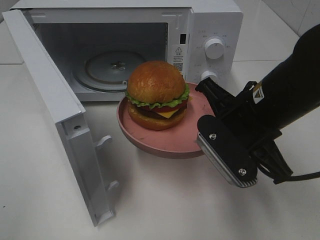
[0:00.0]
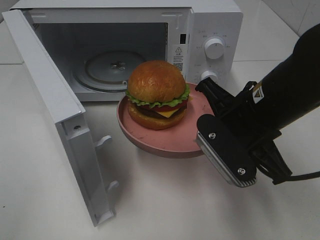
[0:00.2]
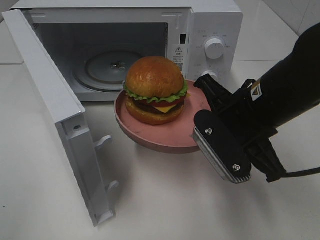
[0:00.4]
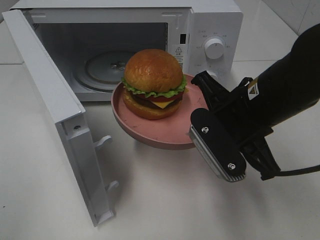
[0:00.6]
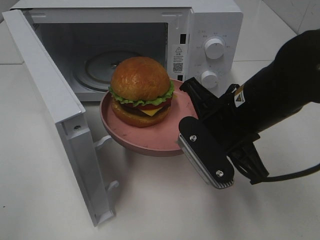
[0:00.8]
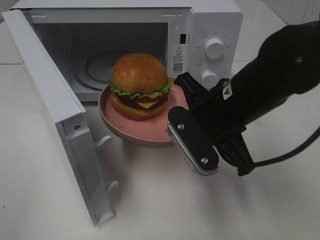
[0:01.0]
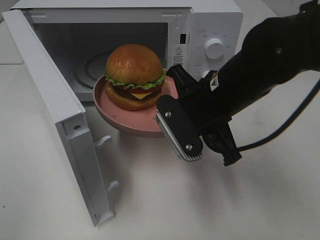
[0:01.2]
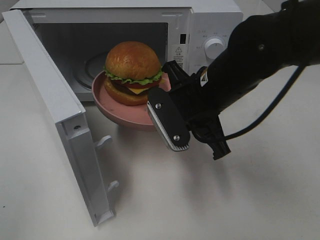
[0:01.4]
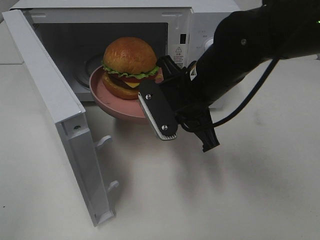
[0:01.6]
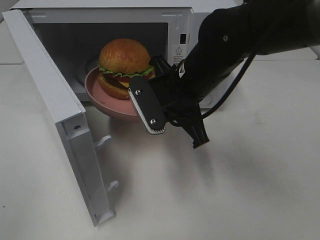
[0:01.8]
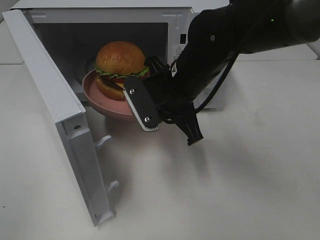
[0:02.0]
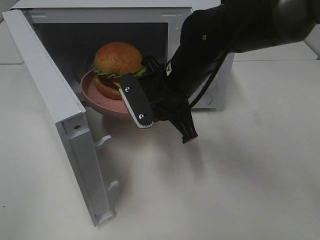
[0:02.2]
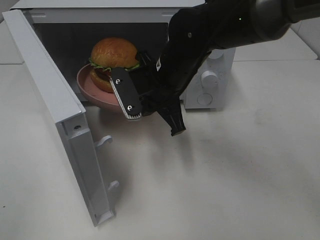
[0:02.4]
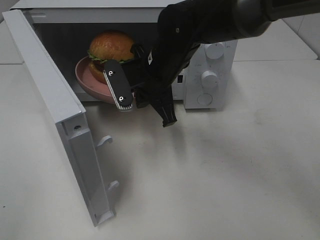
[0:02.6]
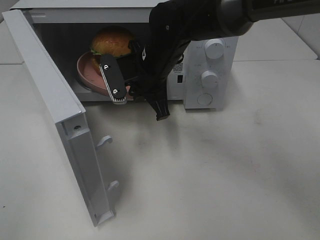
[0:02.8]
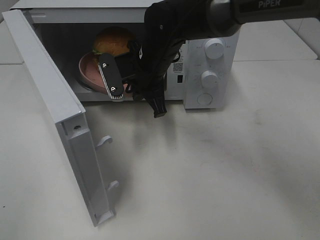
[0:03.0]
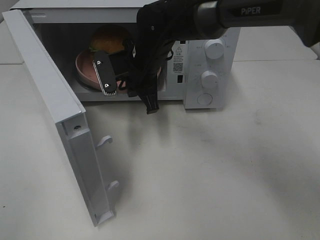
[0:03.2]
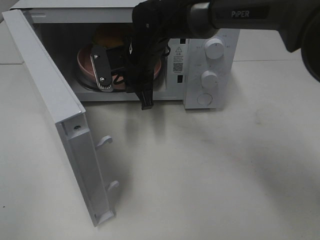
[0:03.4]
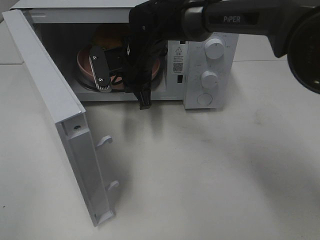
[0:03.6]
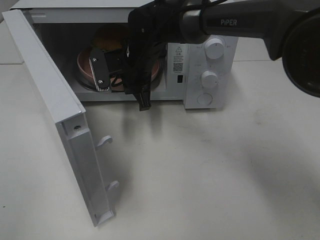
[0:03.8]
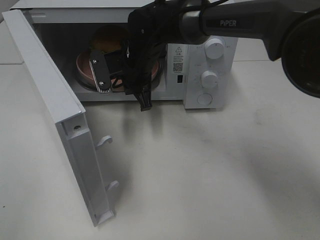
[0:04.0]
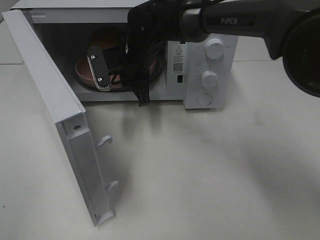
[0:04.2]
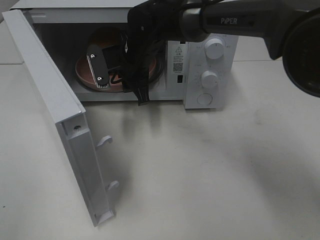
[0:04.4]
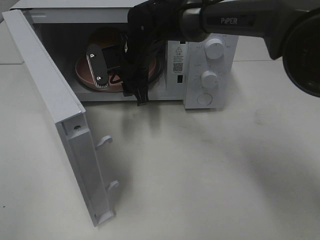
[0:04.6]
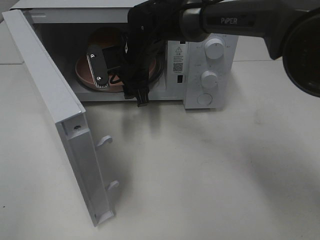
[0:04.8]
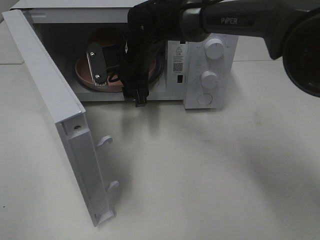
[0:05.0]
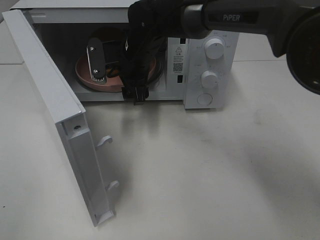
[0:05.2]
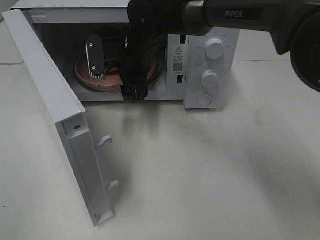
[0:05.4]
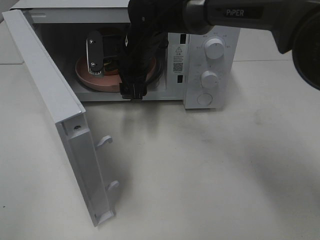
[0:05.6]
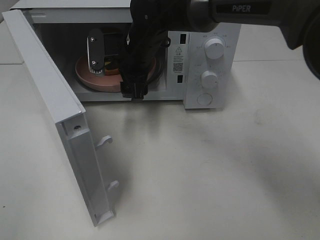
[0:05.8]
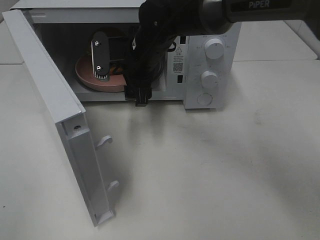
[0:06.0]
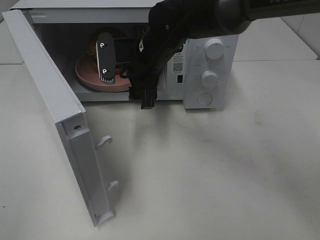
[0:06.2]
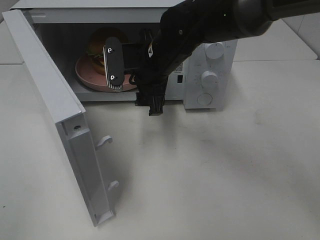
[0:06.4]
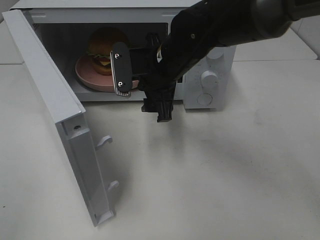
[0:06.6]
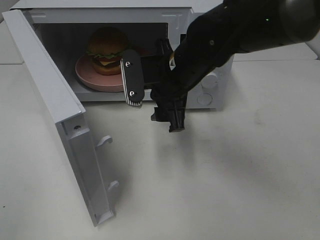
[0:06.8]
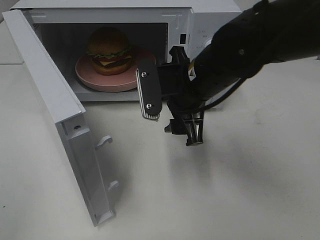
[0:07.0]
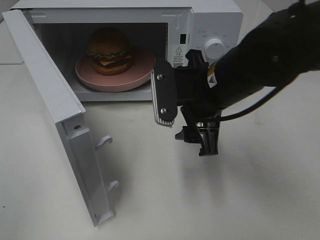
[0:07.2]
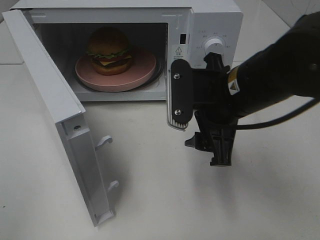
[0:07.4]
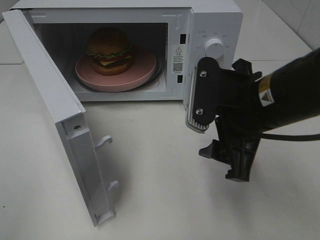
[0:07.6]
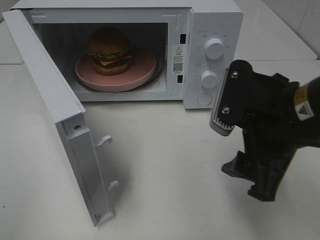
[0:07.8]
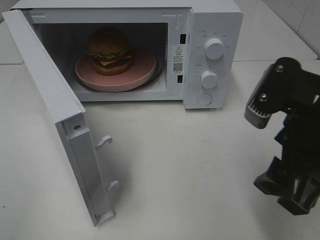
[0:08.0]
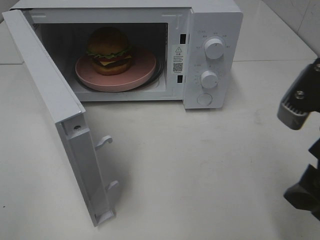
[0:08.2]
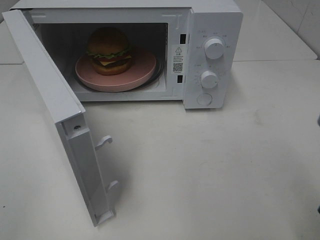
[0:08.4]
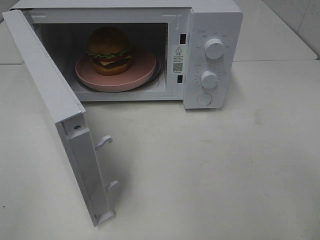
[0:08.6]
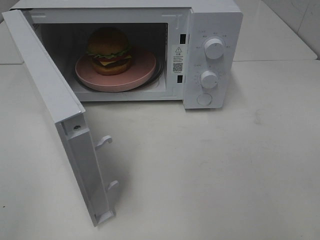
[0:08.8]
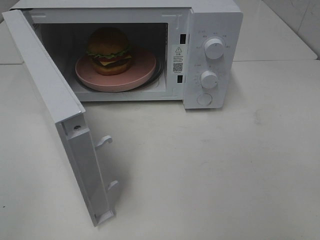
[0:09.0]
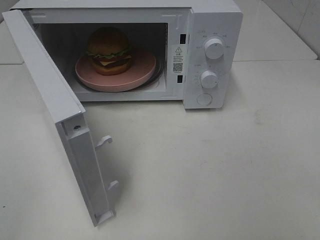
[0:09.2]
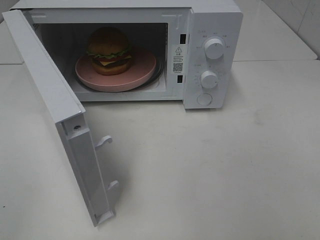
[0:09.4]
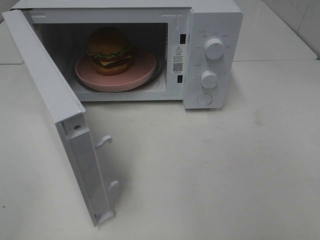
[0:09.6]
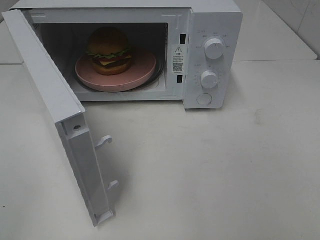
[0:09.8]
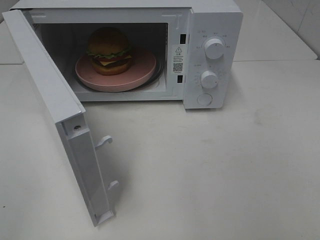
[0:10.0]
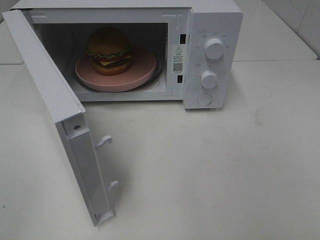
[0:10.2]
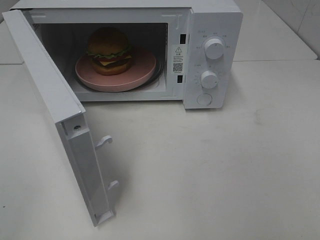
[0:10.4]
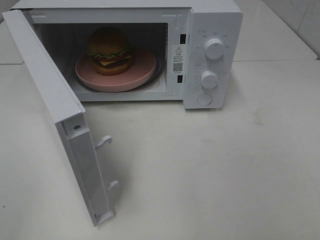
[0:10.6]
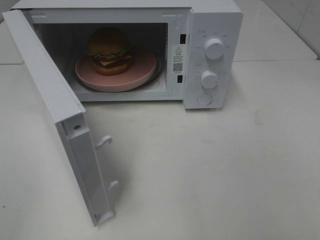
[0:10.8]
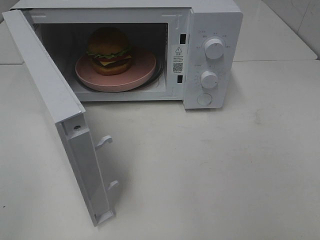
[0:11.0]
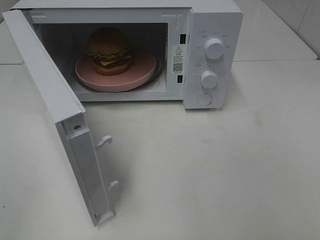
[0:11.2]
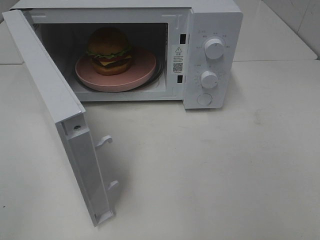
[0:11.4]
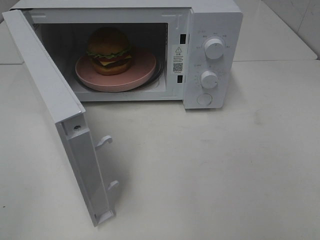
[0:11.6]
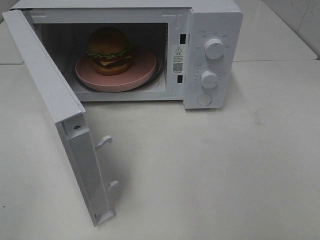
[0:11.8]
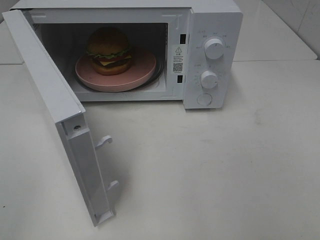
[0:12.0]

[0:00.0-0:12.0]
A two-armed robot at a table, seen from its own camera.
Task of the whole recording: Heat the burger.
Step, 0:00.0 to 0:04.8: Right hand: place the plate in the microwave.
0:00.0 to 0:01.6: The right gripper moves to the left and forward, roughly 10 cm.
0:01.6 to 0:03.0: The right gripper goes some 10 cm forward and to the left.
0:03.0 to 0:04.4: The right gripper opens its fingers.
0:04.4 to 0:06.0: The right gripper opens up.
0:06.0 to 0:07.6: The right gripper shifts some 25 cm backward and to the right.
0:07.6 to 0:09.0: The right gripper is displaced backward and to the right by some 20 cm.
0:10.4 to 0:12.0: The two grippers keep their place.

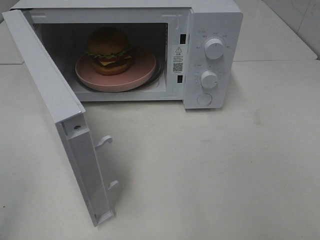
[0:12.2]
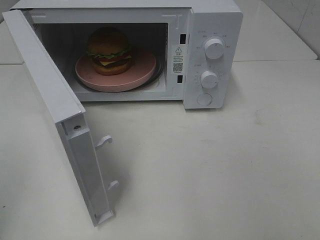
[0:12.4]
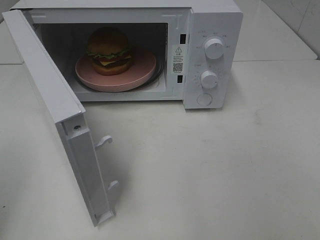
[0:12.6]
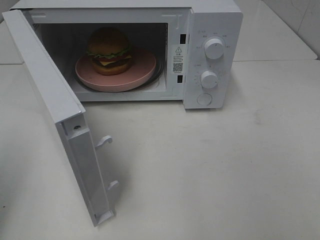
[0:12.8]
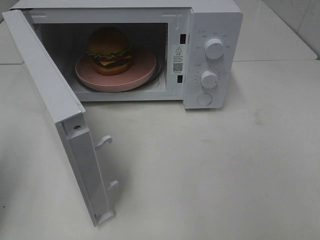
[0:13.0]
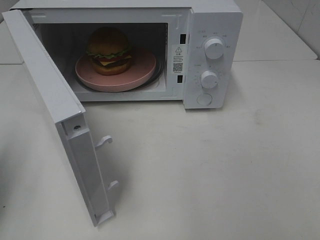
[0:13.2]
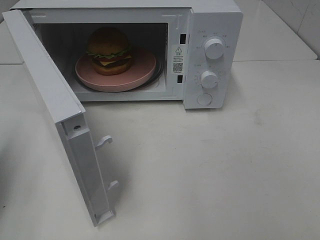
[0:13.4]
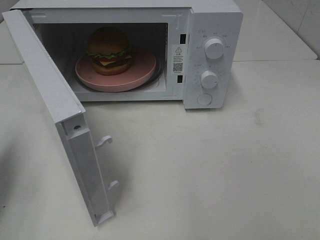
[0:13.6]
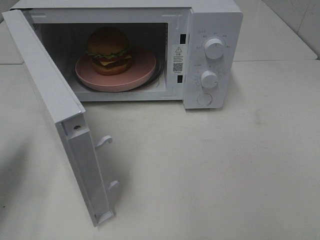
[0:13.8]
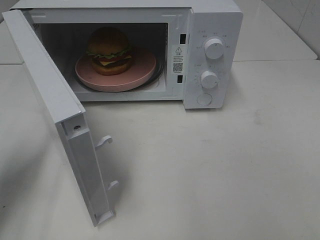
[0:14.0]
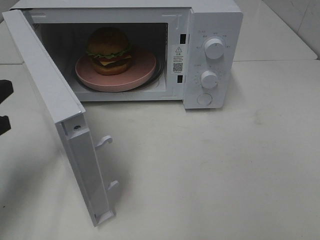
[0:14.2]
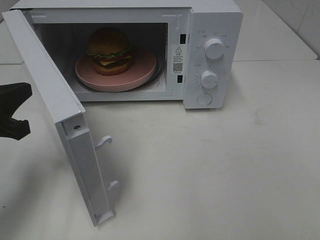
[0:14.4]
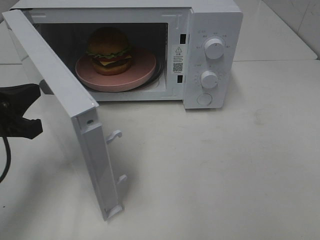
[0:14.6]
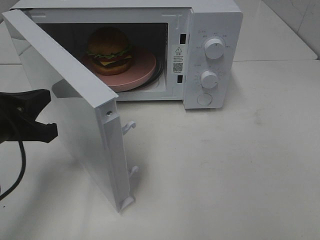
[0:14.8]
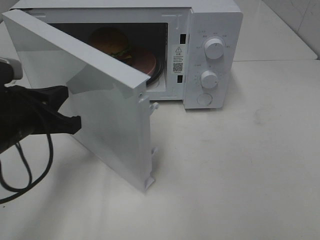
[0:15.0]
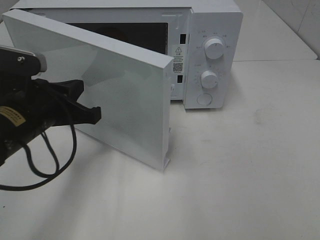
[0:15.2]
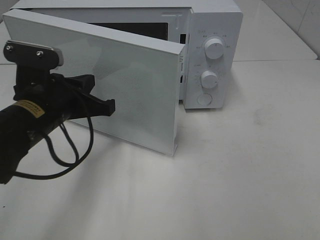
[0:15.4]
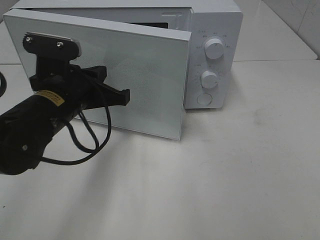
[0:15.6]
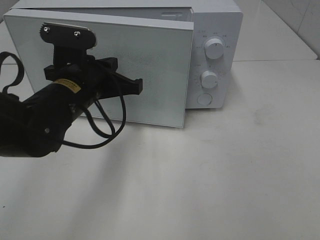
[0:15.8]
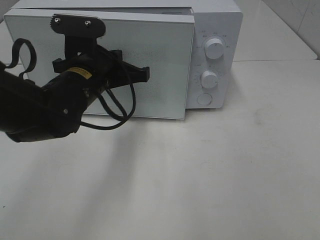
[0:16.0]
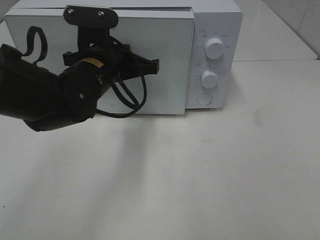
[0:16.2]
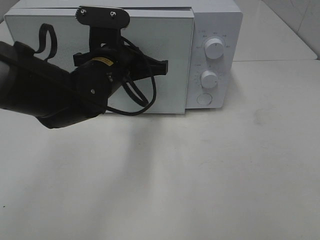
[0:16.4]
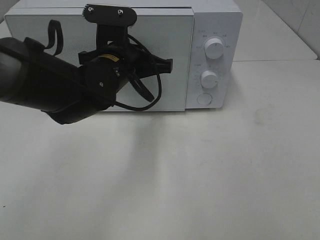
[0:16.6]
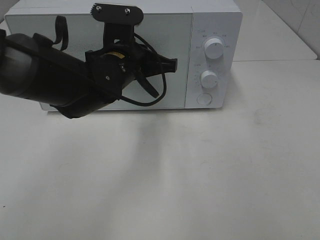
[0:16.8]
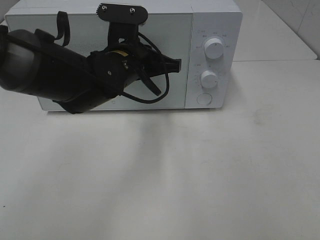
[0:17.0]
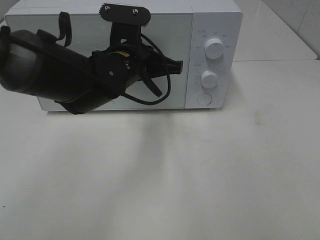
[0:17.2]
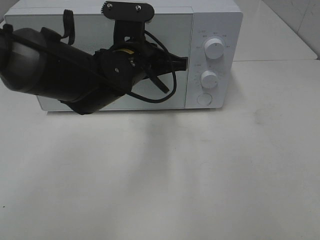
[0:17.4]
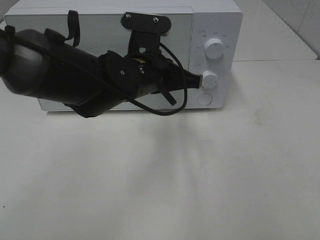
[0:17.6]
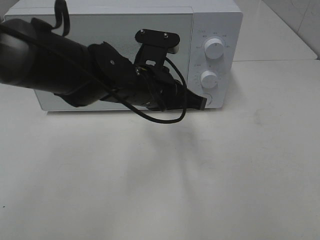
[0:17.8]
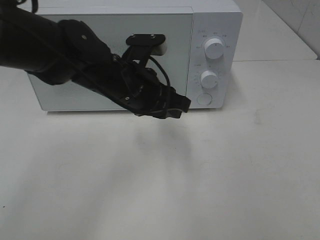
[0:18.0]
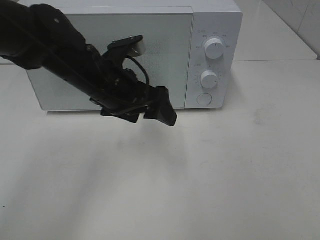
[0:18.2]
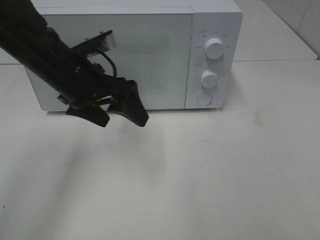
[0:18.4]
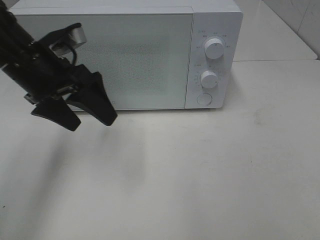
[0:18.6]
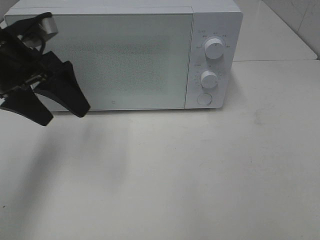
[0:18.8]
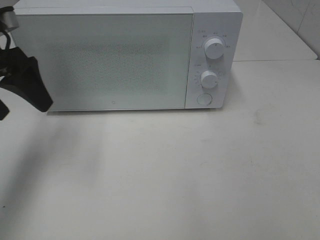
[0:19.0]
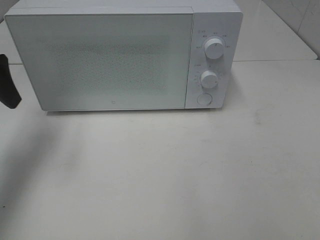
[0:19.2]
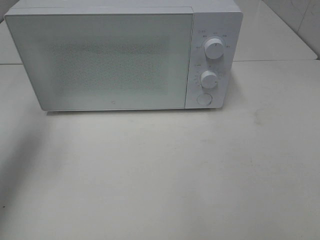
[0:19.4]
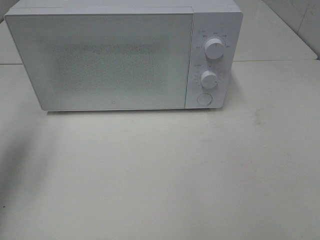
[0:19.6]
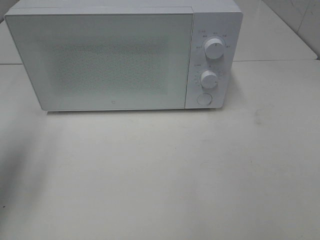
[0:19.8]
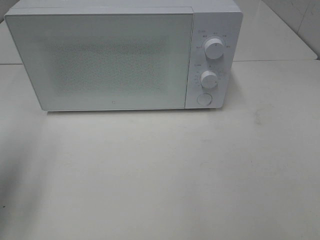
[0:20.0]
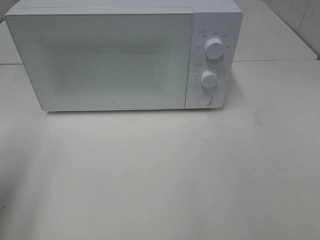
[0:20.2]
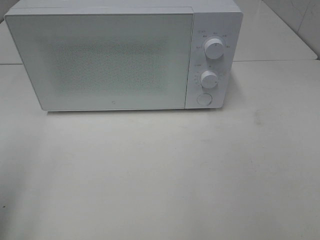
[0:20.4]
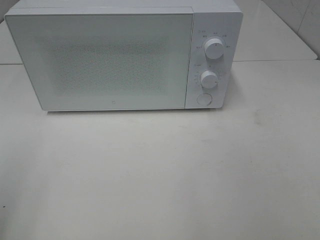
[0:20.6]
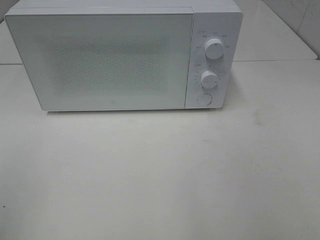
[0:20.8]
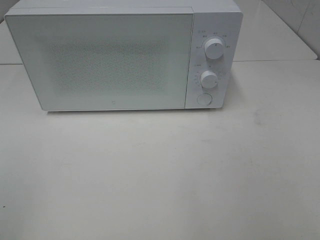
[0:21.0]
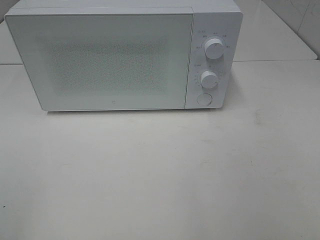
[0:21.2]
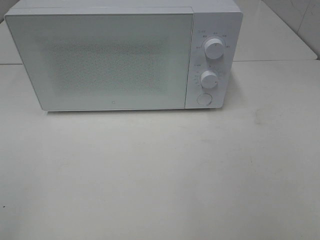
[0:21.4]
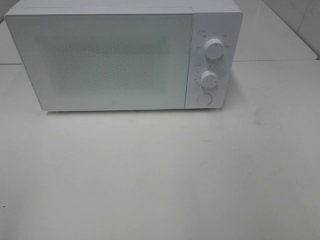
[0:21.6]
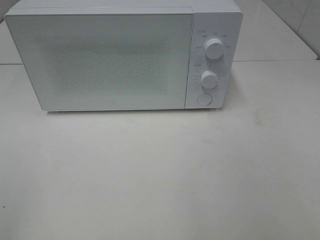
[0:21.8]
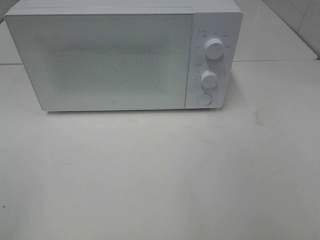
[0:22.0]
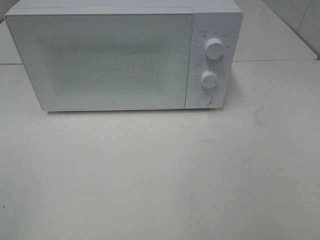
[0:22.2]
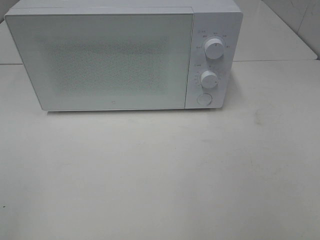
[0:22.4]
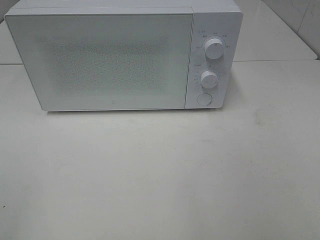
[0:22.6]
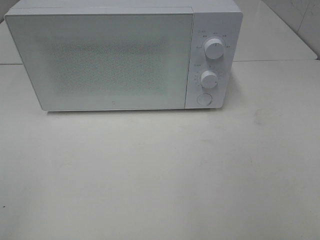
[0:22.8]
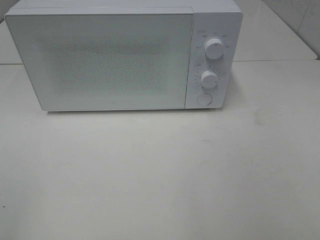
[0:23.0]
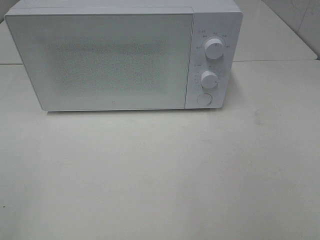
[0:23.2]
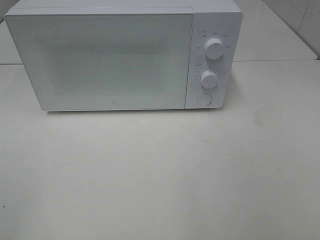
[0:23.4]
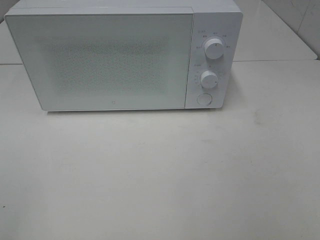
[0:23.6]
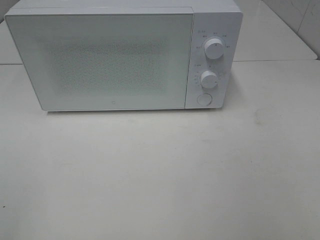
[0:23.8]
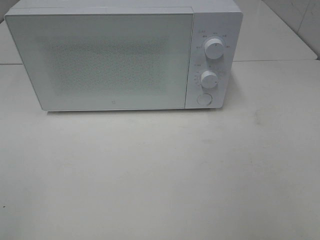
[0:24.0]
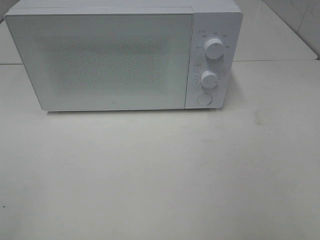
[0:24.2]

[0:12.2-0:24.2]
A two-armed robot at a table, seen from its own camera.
Task of the whole recording: Heat the burger.
Step, 0:12.2 to 0:17.8: Left hand: close the microwave door.
0:12.2 to 0:13.8: The left gripper moves forward and downward, about 20 cm, and closes up.
0:13.8 to 0:15.2: The left gripper is displaced to the right by about 15 cm.
0:15.2 to 0:16.6: The left gripper moves to the right and forward, about 15 cm.
0:16.6 to 0:18.2: The left gripper opens.
0:18.2 to 0:19.8: The left gripper is displaced to the left by some 25 cm.
0:19.8 to 0:21.2: The left gripper shifts roughly 25 cm backward.
0:21.2 to 0:22.6: Both grippers stay put.
